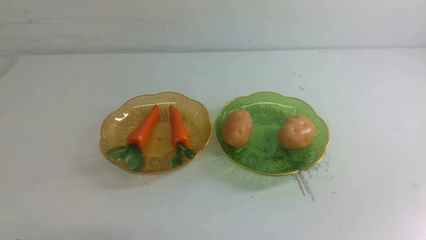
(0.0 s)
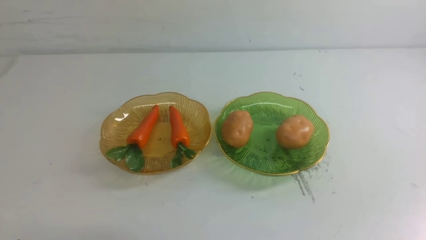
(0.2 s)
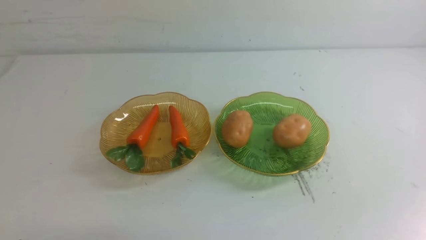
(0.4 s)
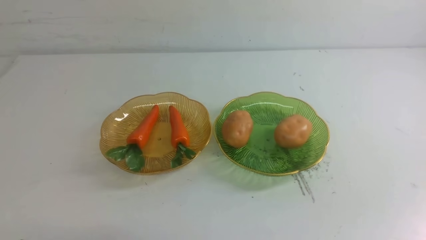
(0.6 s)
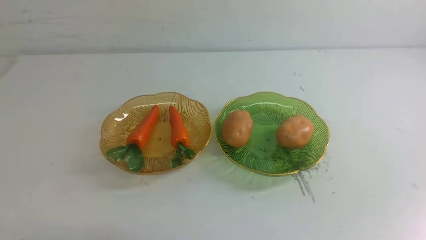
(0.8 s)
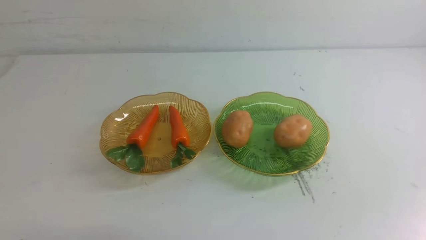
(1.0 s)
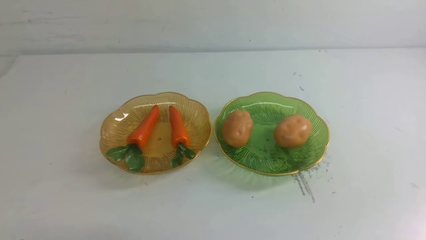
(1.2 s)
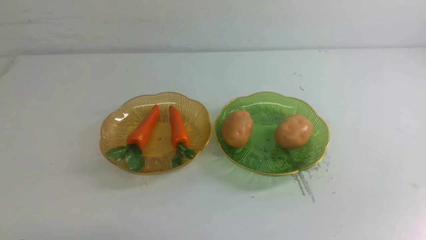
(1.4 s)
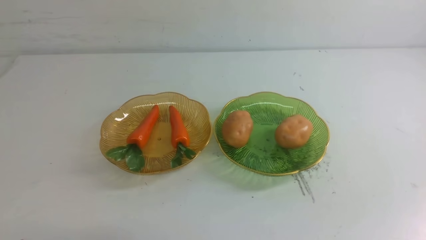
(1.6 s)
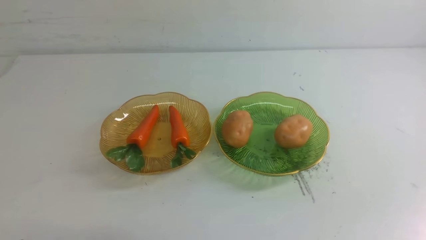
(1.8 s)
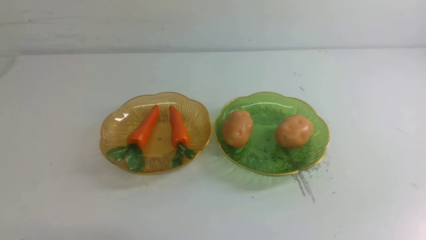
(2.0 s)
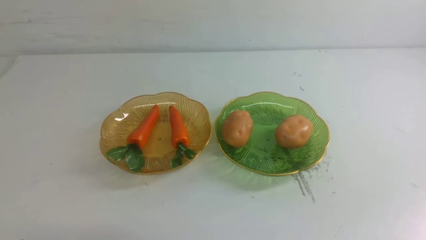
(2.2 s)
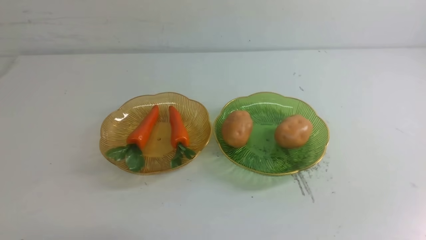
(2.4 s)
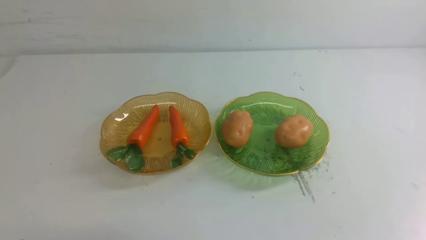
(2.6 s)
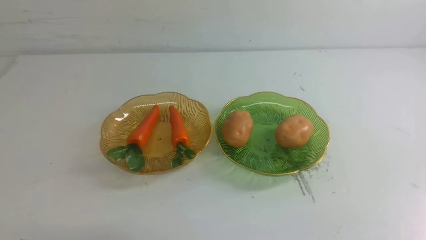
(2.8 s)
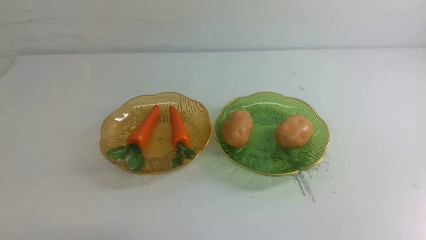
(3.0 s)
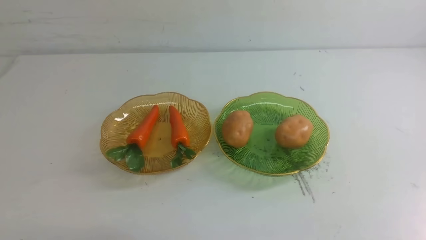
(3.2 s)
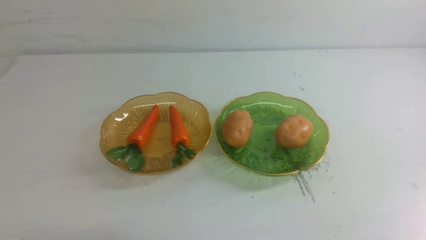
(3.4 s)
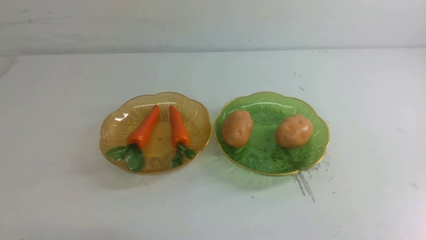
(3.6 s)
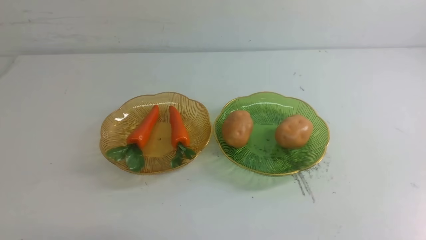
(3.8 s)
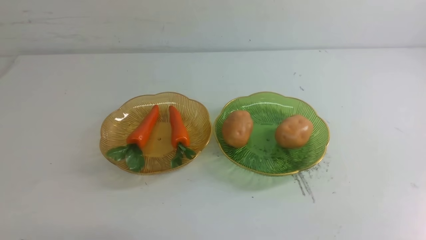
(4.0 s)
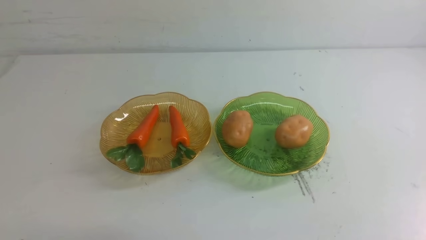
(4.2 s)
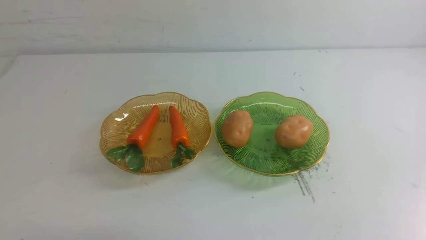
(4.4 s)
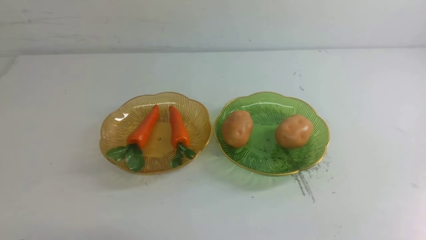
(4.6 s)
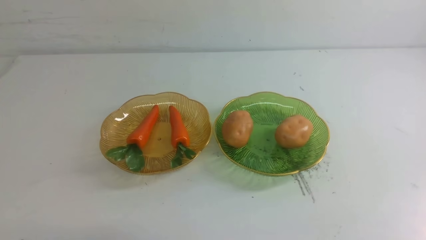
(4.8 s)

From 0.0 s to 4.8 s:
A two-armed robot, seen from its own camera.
From 0.0 s to 1.6 s: Neither gripper changes place.
From 3.2 s to 4.8 s: Both grippers stay about where they are.
